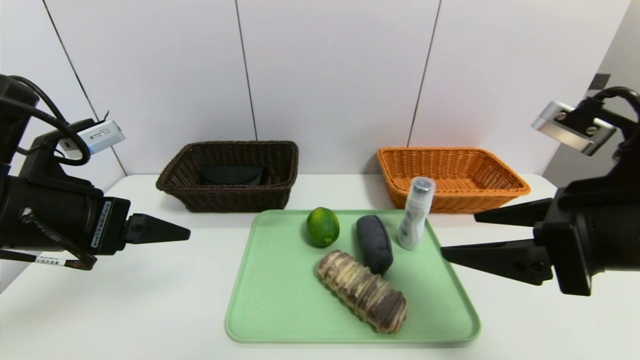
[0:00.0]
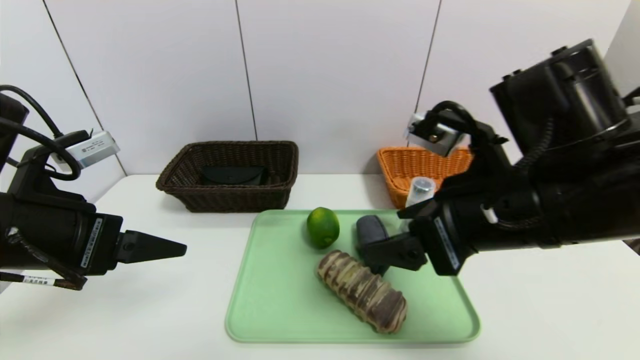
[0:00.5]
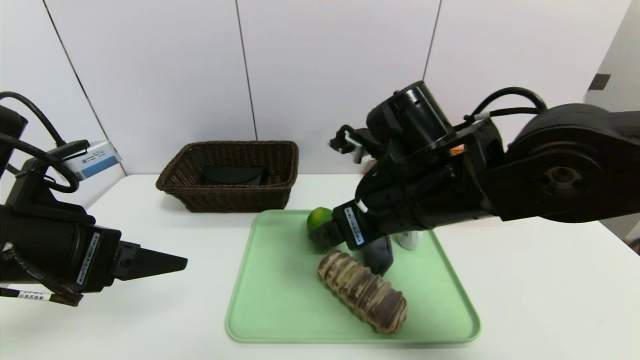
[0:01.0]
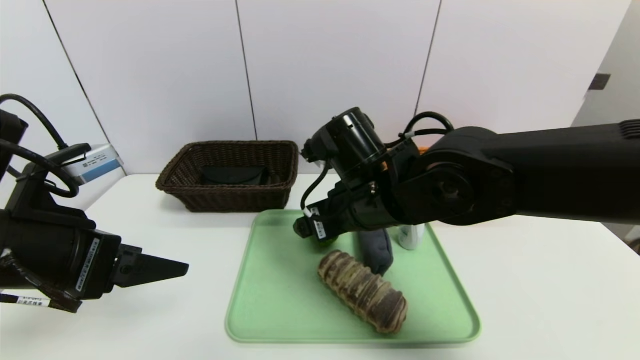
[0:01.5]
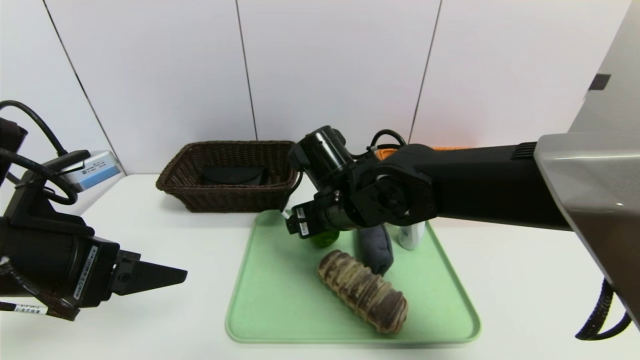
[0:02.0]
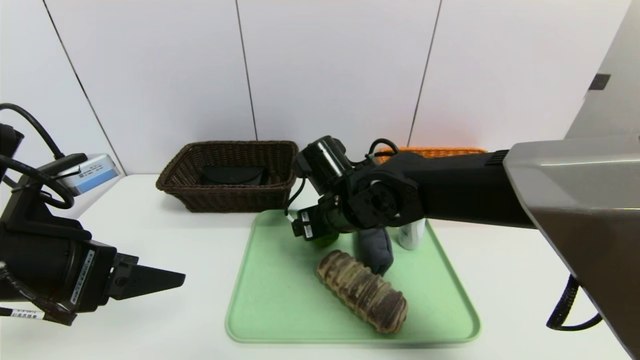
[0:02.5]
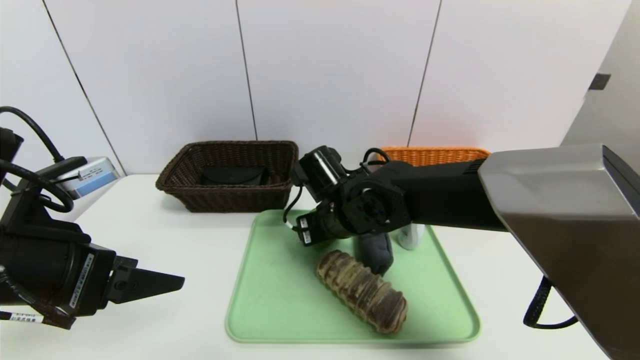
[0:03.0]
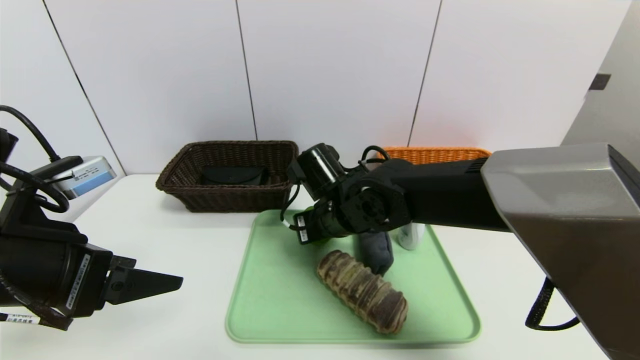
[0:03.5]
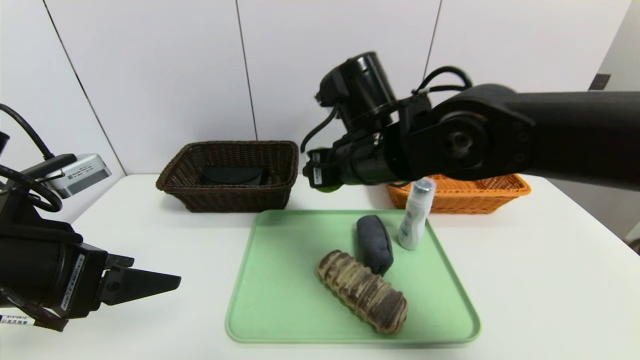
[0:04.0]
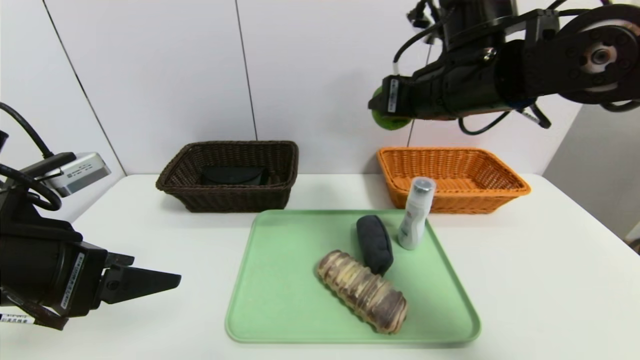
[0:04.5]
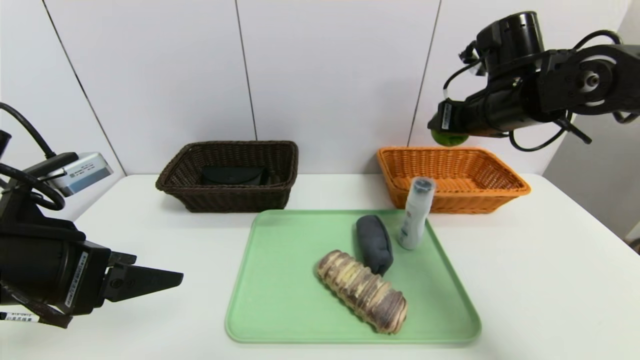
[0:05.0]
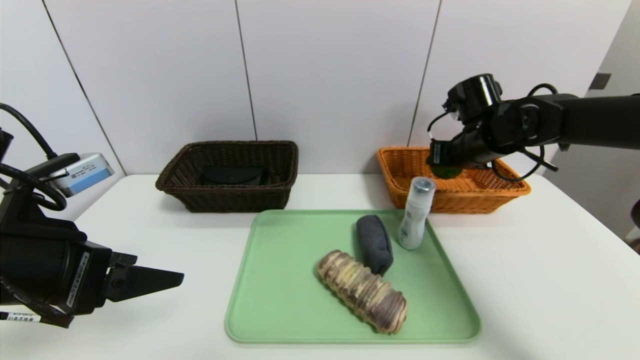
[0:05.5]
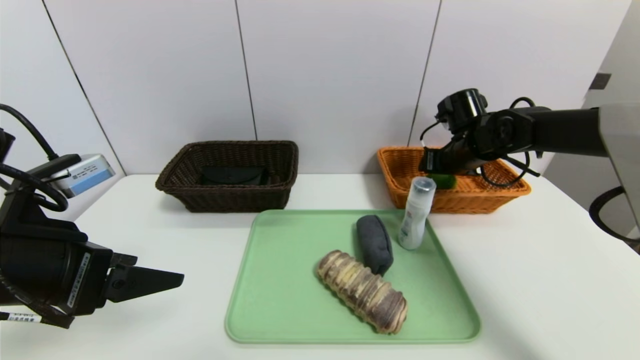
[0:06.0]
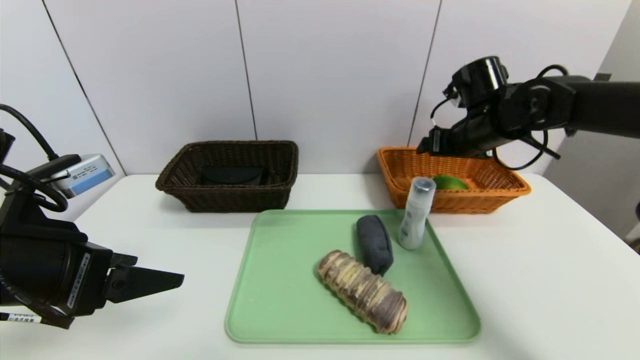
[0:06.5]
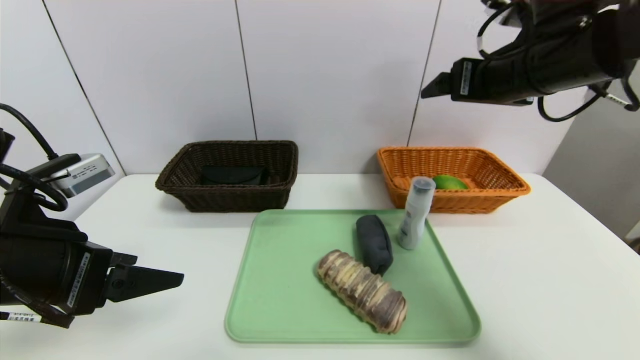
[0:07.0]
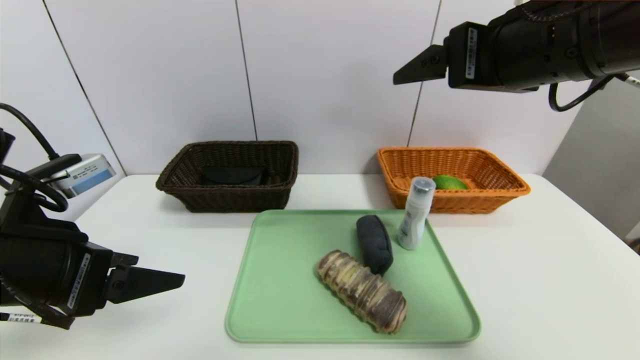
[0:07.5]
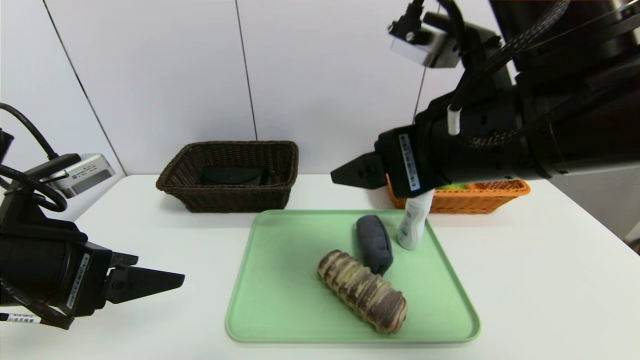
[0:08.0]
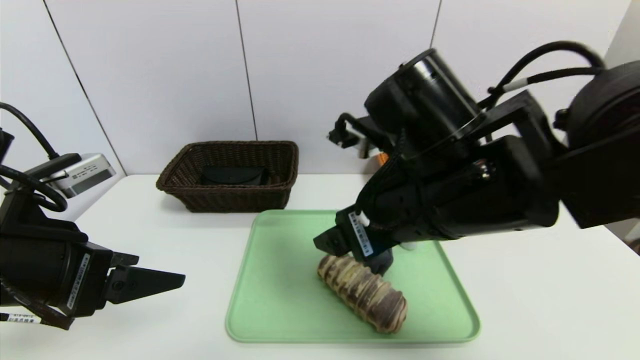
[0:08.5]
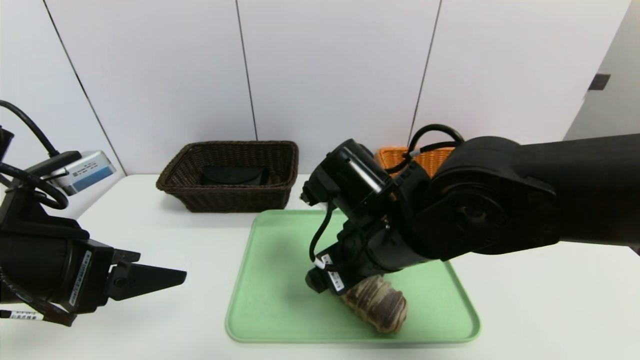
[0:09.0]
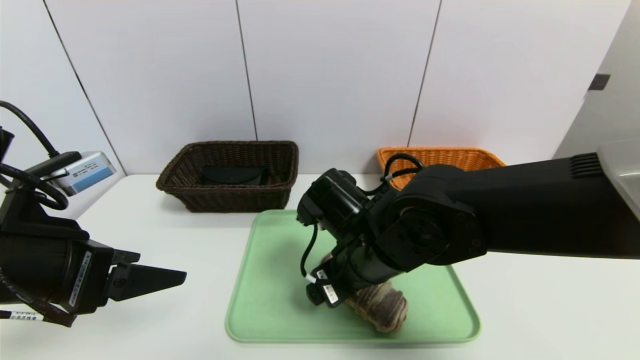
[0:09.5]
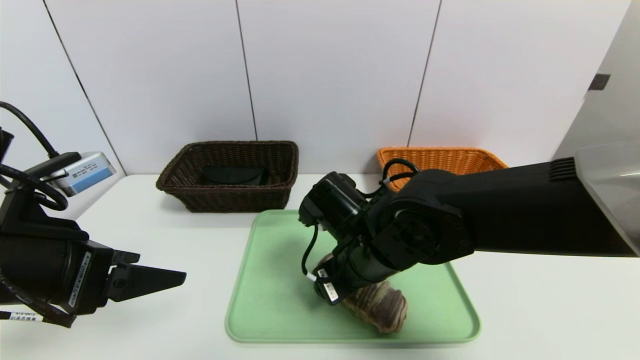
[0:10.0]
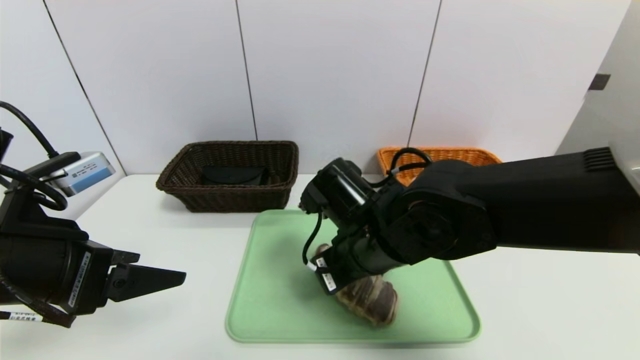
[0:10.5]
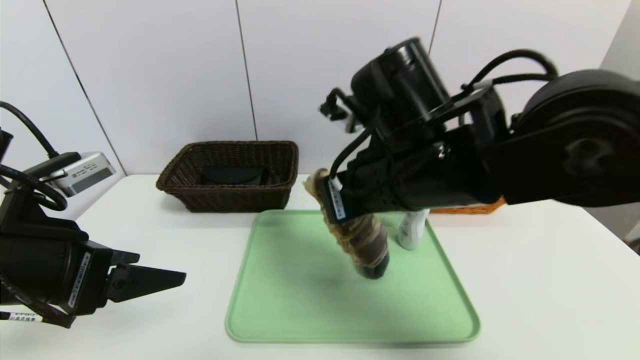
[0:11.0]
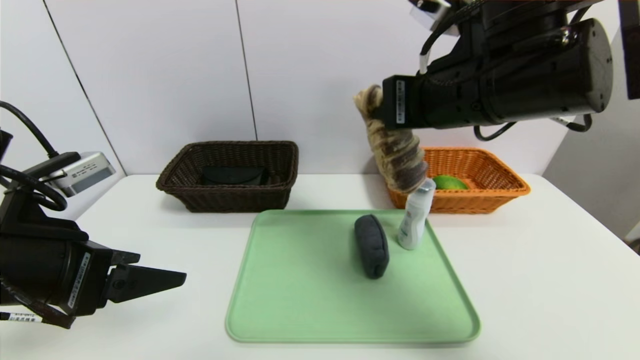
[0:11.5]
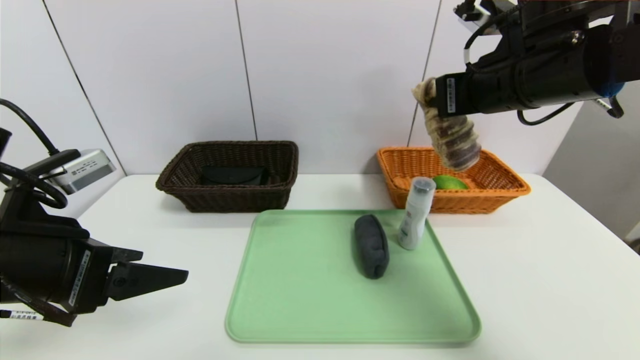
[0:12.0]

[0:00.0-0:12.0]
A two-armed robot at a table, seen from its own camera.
Task of the whole recording: place the food in the right basket with the right gripper, and place the non food items in the left basket with the left gripper.
Step, 0:00.0 to 0:06.5: Grasp the lime and put it in the right basket.
0:00.0 to 0:02.0: The right gripper moves to the left, forward and downward, about 25 cm.
0:02.0 to 0:04.0: The right gripper heads upward, covering roughly 10 cm, and closes its fingers.
0:04.0 to 0:06.0: The right gripper is displaced to the right and forward by approximately 25 cm.
0:06.0 to 0:08.0: The right gripper is displaced backward, upward and to the left by roughly 30 cm.
0:08.0 to 0:10.0: The right gripper heads downward and to the left, covering roughly 20 cm.
0:10.0 to 0:12.0: The right gripper travels upward and to the right by roughly 25 cm, and closes up.

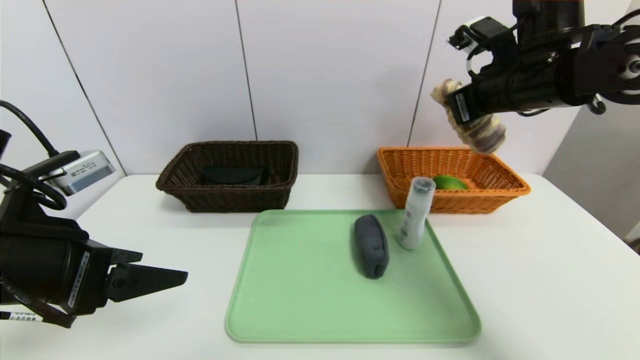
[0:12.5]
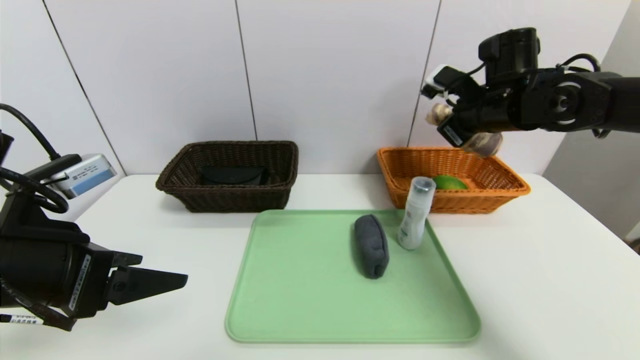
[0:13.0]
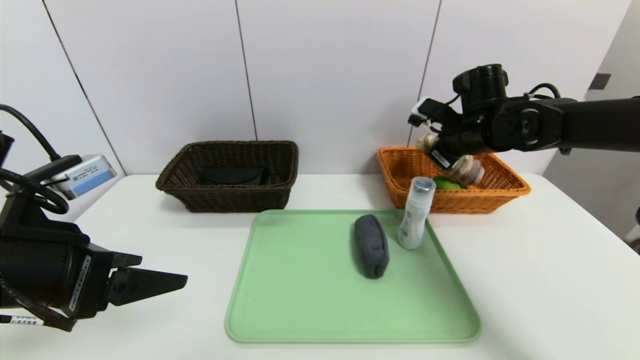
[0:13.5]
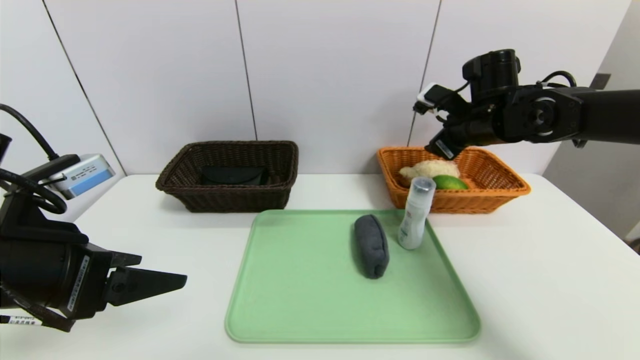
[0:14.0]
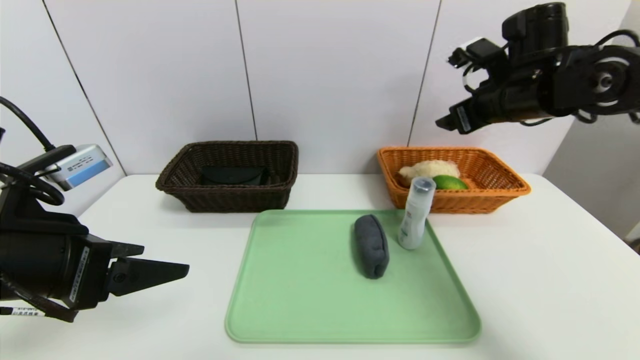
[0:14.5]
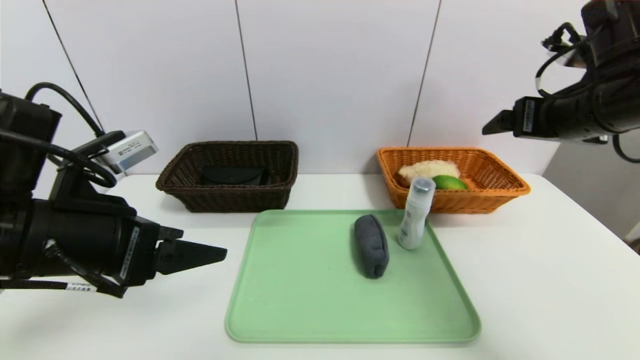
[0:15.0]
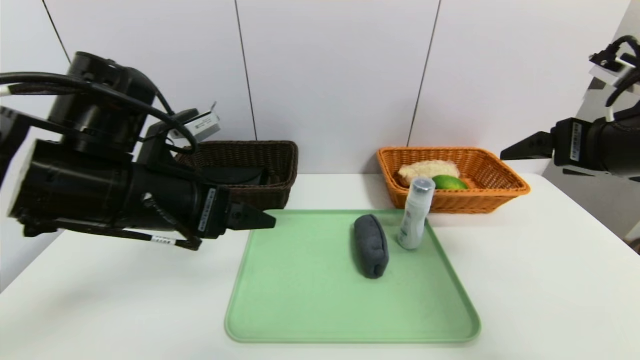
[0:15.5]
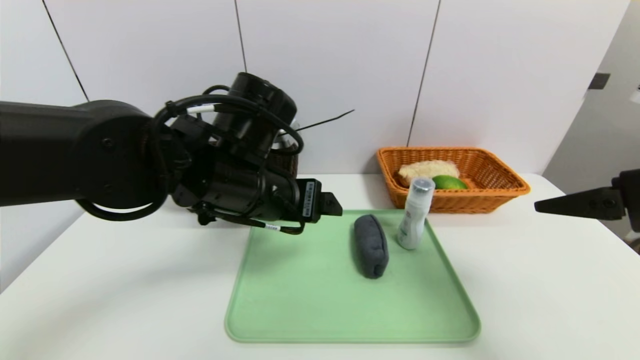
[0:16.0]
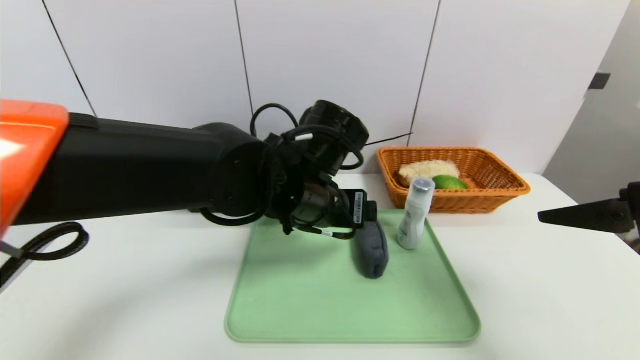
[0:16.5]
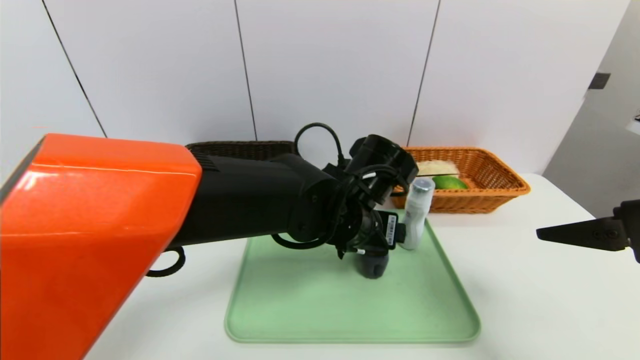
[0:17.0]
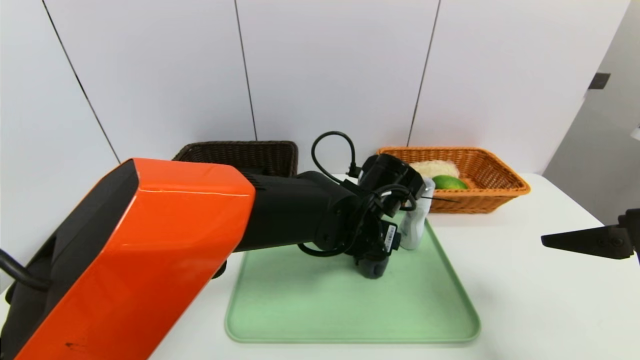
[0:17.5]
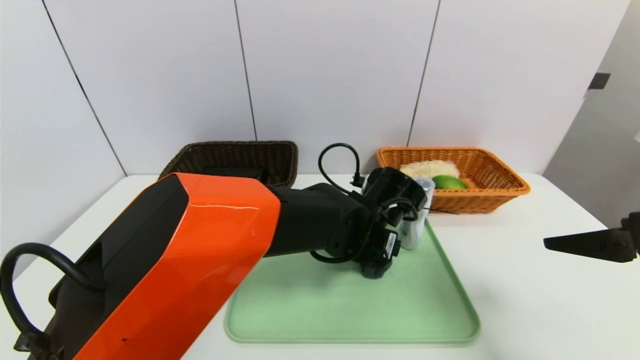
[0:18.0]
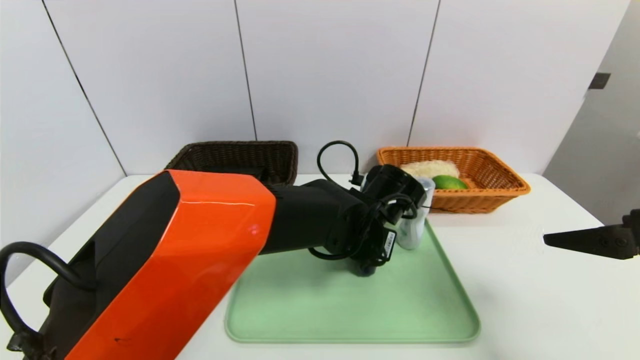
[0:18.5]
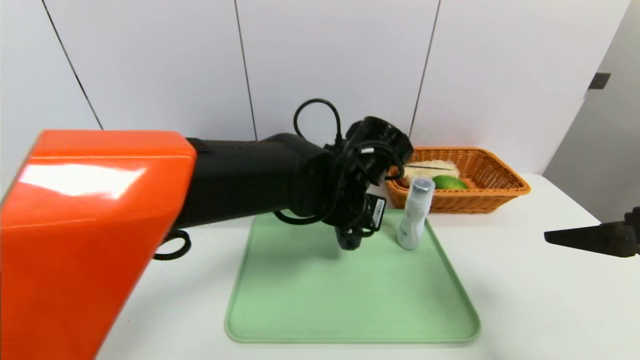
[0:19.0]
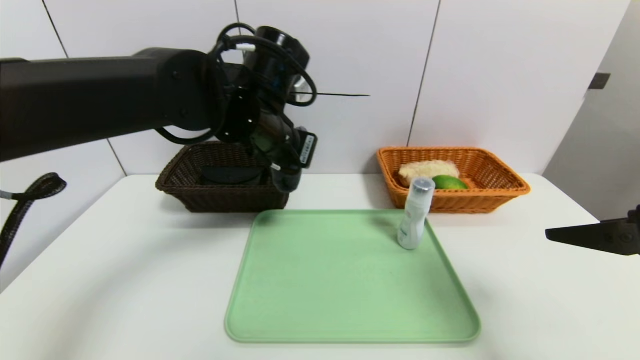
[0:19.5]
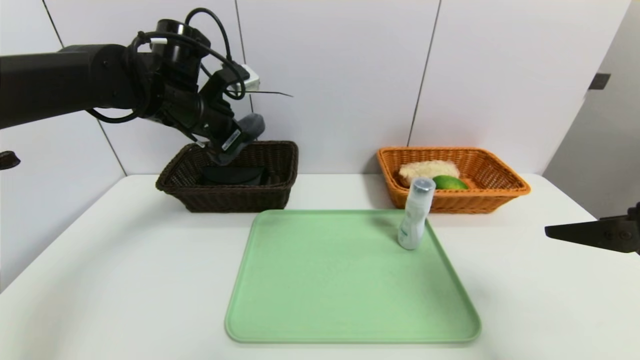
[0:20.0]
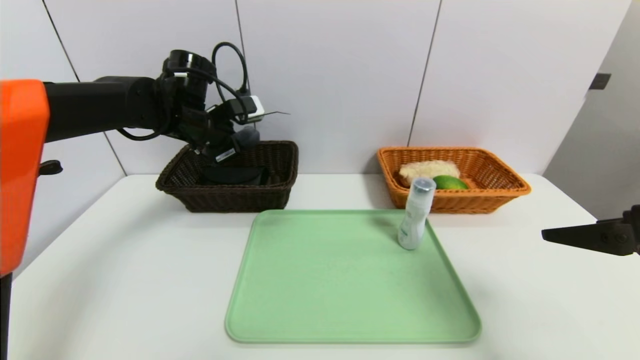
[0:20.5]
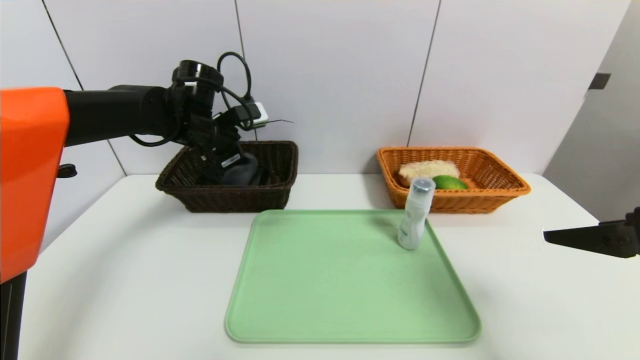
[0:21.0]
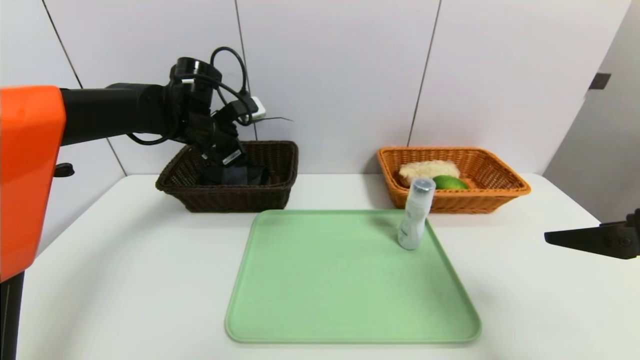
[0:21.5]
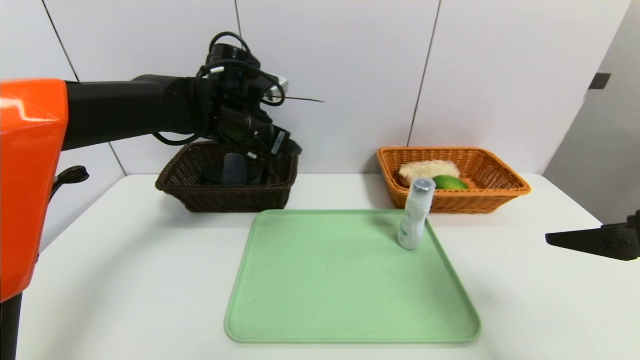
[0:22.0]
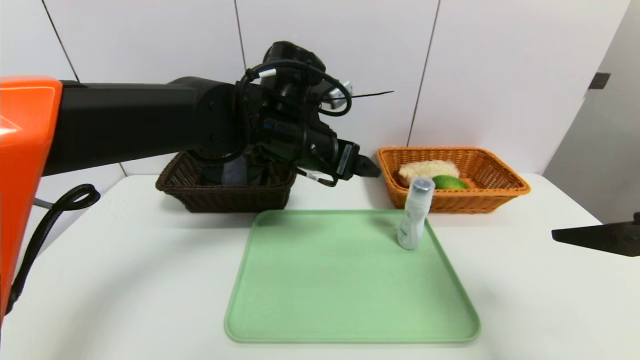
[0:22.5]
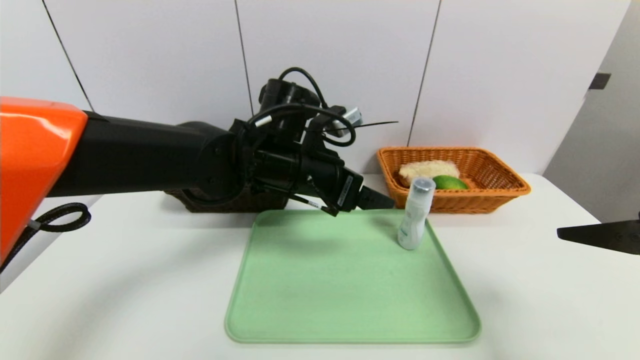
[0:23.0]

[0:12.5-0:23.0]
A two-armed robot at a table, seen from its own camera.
Task of the whole recording: place the food in the right basket with the right gripper, and place the non food items in the left basket with the left gripper.
Step, 0:14.5 to 0:21.5: Grasp the grey towel and put it in the left basket.
0:12.5 to 0:14.5: The right gripper moves about 10 cm downward and comes back, and opens.
0:14.5 to 0:16.5: The right gripper moves backward, roughly 20 cm, while the left gripper is displaced to the right and forward by approximately 25 cm.
0:16.5 to 0:19.0: The left gripper travels downward and back again, about 10 cm each way, and closes up.
0:19.0 to 0:21.0: The left gripper moves to the left and forward, roughly 25 cm, and opens up.
0:21.0 to 0:23.0: The left gripper travels to the right and backward by some 20 cm, and opens.
